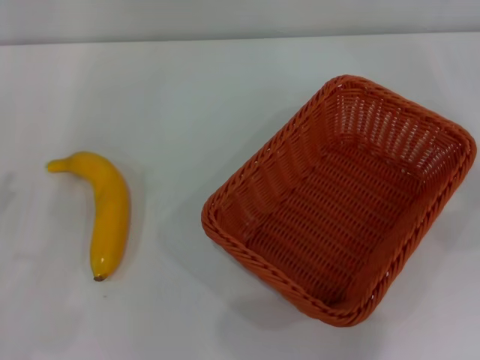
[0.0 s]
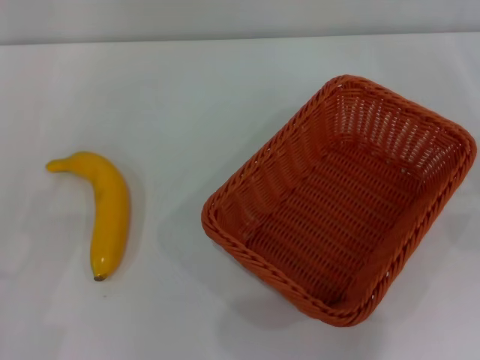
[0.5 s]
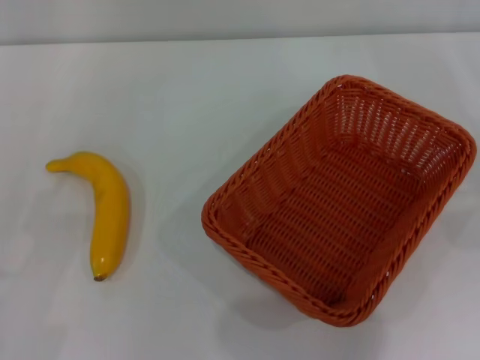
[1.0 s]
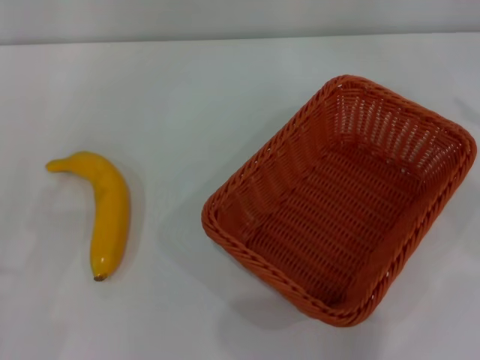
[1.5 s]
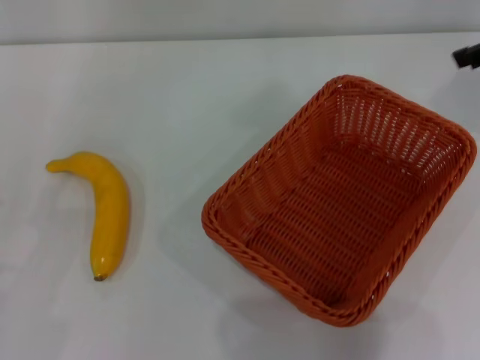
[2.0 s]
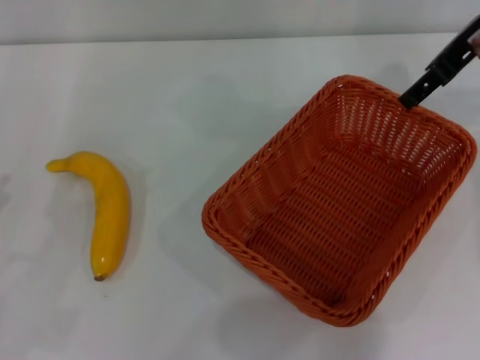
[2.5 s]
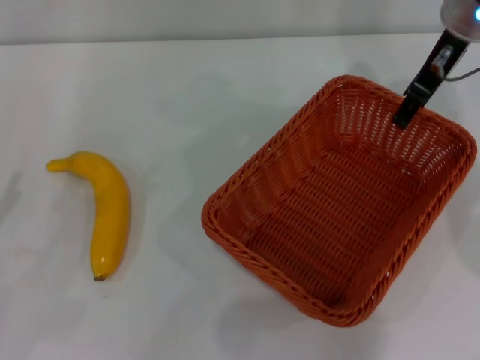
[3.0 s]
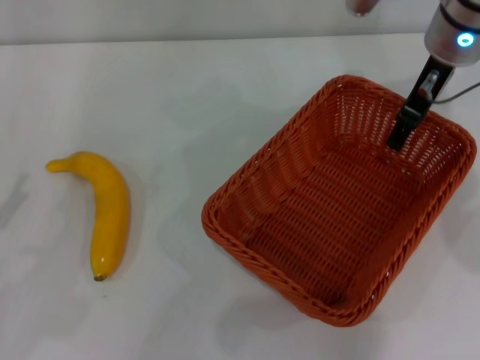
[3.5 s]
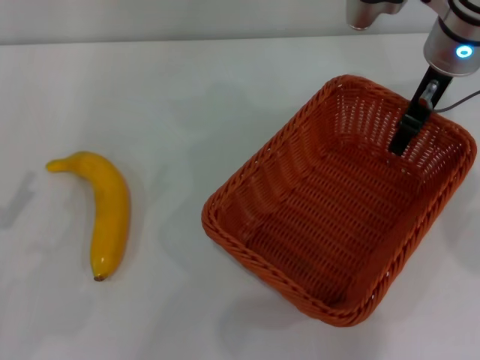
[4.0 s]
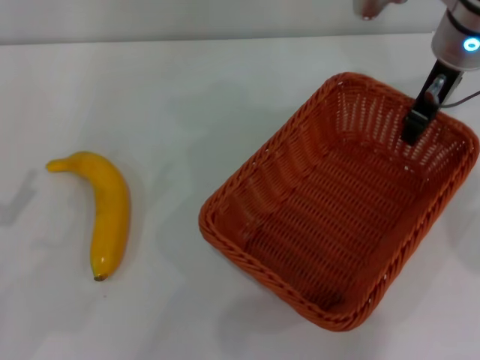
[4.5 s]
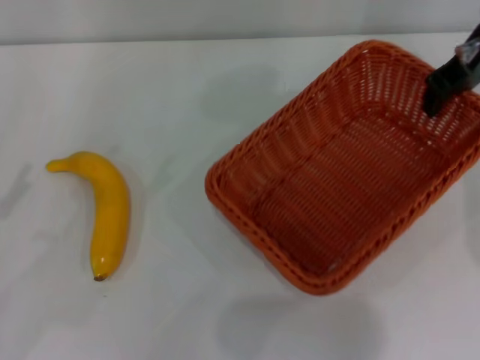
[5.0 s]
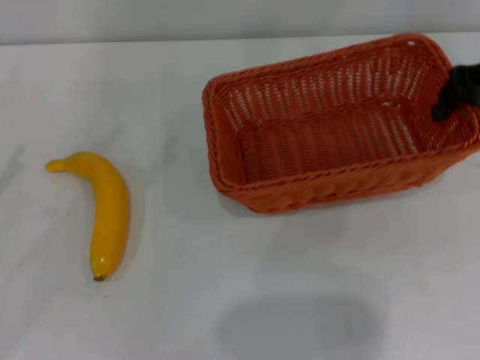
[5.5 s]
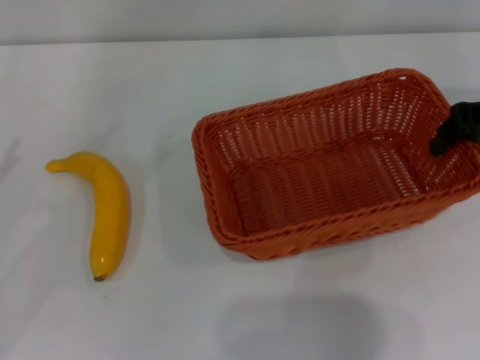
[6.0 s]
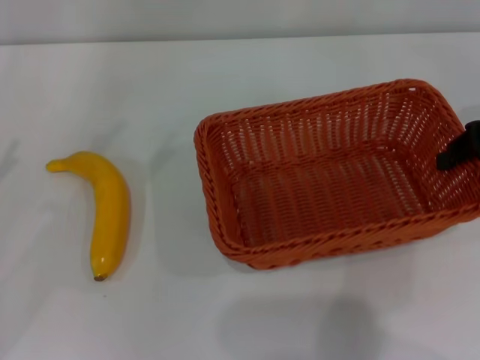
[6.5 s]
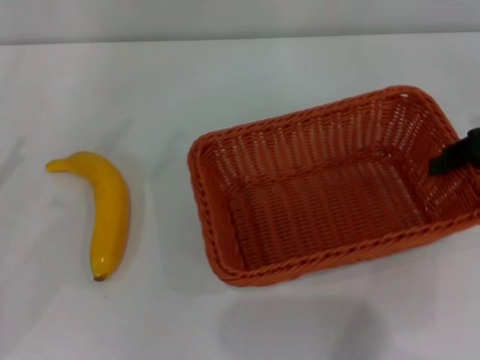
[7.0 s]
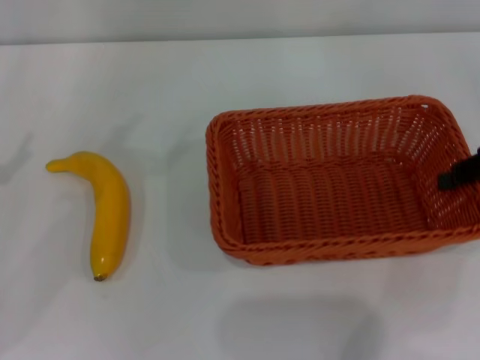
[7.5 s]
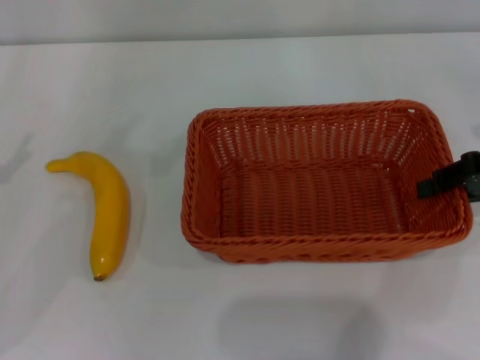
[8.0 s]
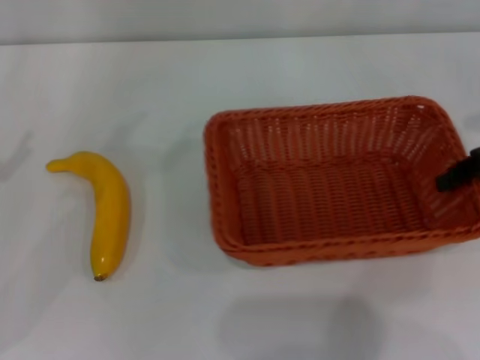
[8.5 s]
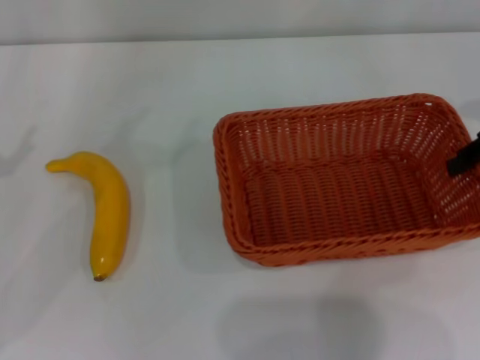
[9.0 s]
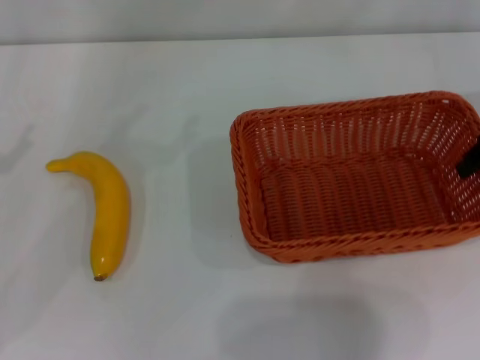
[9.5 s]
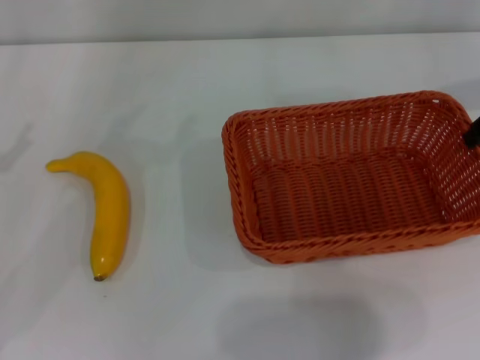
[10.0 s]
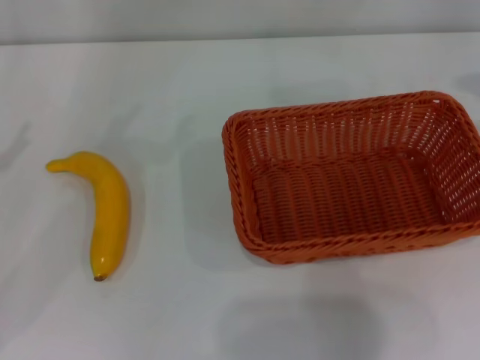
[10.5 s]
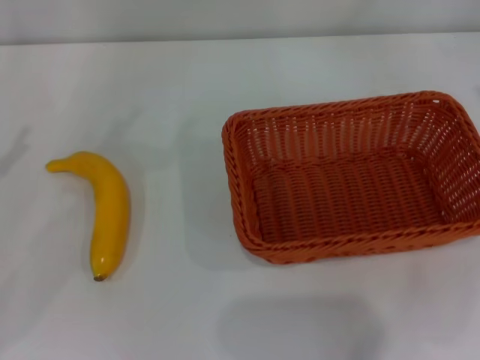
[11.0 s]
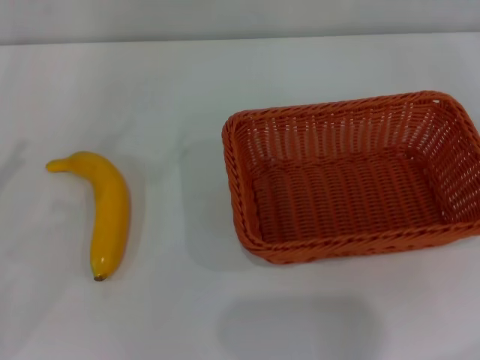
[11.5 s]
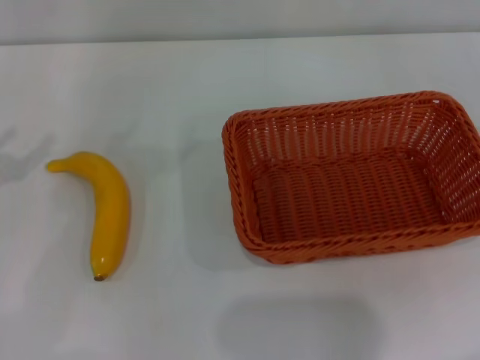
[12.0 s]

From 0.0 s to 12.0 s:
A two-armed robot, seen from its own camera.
Step, from 0.0 s to 5.0 s: Pick up the light basket with the right gripper.
Step, from 5.5 s to 10.5 s: Place the light basket in the center of view with the right gripper.
From 0.0 s to 2.0 s: The right gripper travels upward, forward and to the left by approximately 20 cm.
From 2.0 s to 4.0 s: The right gripper goes some 15 cm to the left and downward.
From 4.0 s to 6.0 s: The left gripper changes place by some 5 cm; the right gripper goes some 15 cm to the right and backward, and closes.
From 6.0 s to 8.0 s: The right gripper heads downward, covering roughly 5 cm.
From 8.0 s to 10.0 s: The right gripper travels upward and forward by approximately 10 cm.

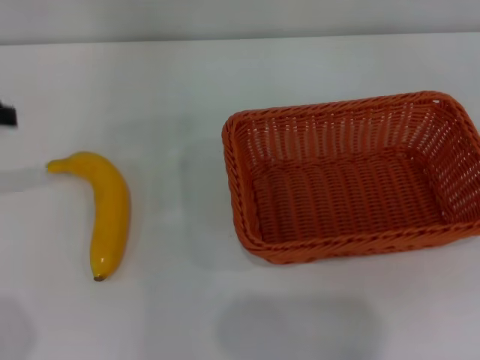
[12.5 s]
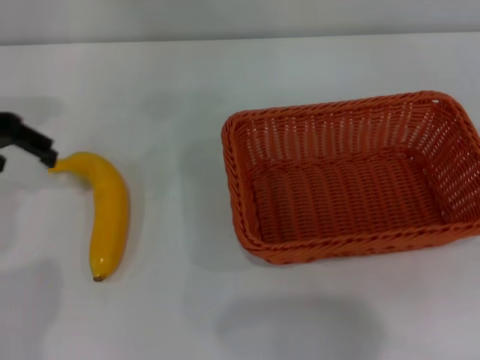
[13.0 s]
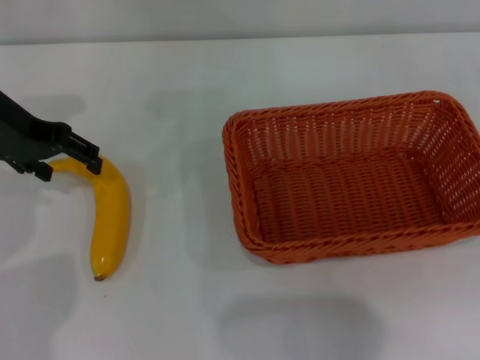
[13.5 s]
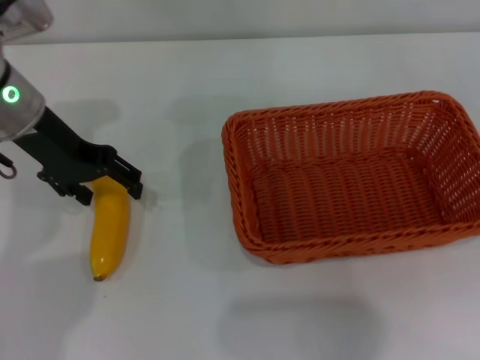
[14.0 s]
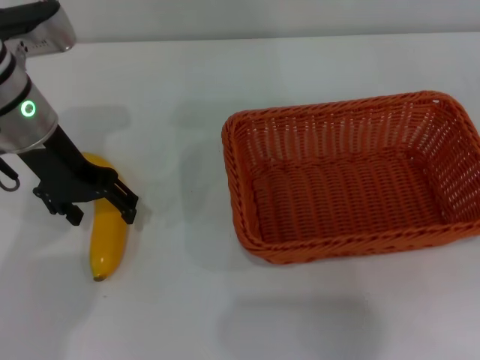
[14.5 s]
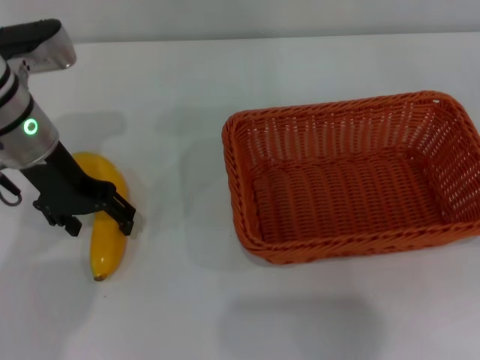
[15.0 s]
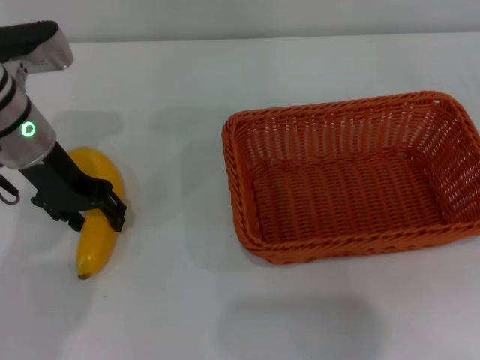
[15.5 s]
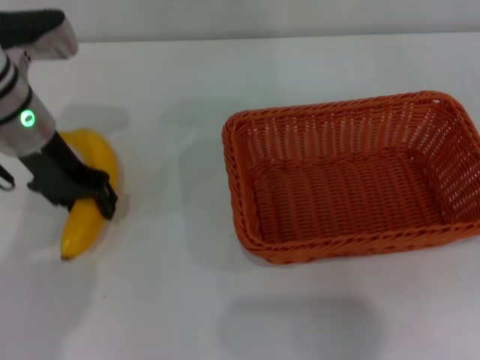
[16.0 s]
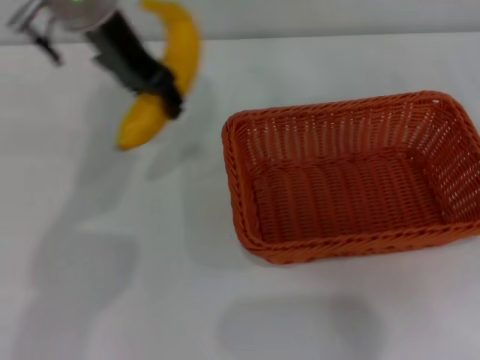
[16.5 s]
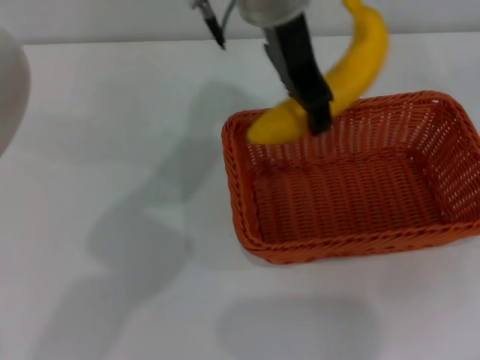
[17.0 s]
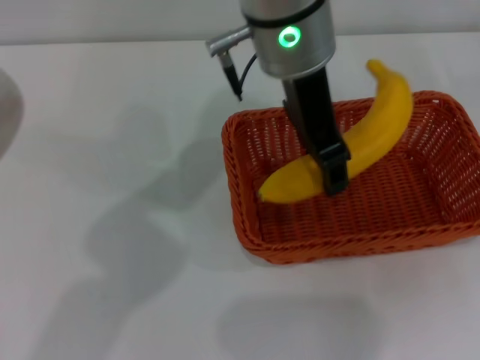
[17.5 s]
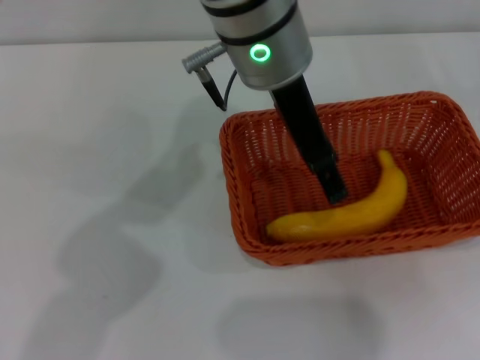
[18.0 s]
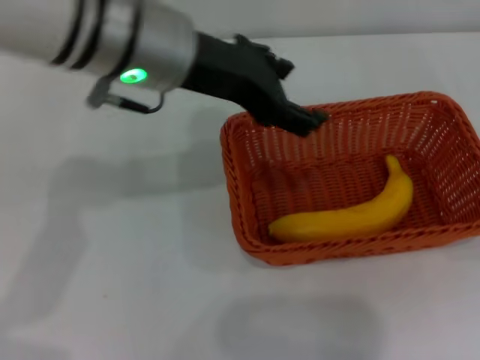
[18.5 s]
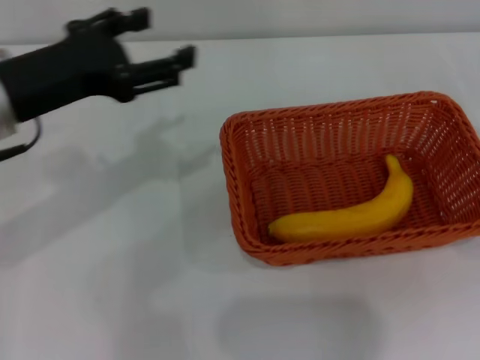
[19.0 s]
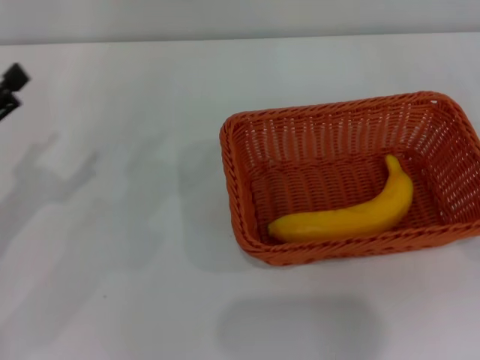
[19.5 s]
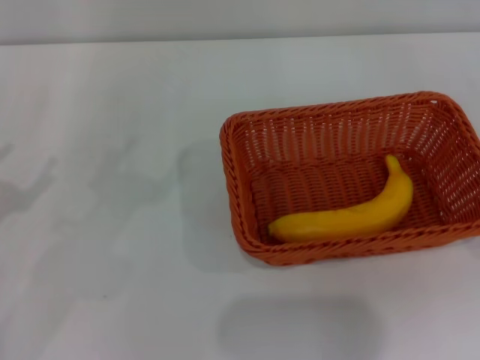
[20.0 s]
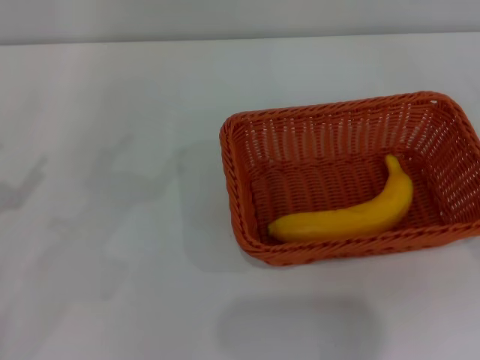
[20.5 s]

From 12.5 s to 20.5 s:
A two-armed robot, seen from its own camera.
Step, from 12.5 s to 16.5 s: Pick up the banana with the left gripper.
Step, from 17.0 s to 18.0 s: Place the banana into the light basket with the left gripper.
From 12.5 s to 14.5 s: The left gripper moves to the right, downward and forward, approximately 20 cm.
From 14.5 s to 16.5 s: The left gripper travels upward and to the right by some 10 cm, and closes.
From 16.5 s to 18.5 s: The left gripper travels backward by roughly 10 cm, reaches approximately 15 cm to the right, then returns, and opens.
From 18.5 s to 20.5 s: The left gripper moves to the left, downward and backward, about 35 cm.

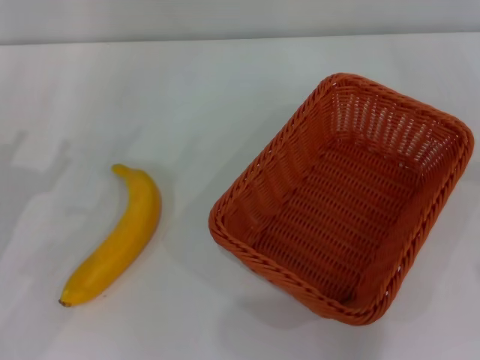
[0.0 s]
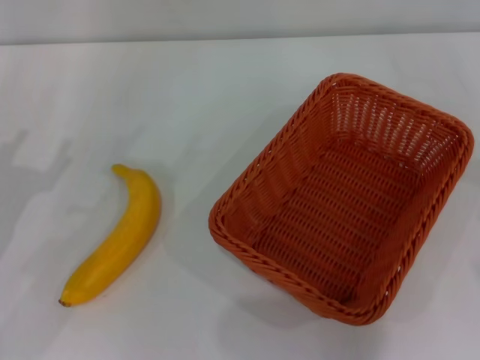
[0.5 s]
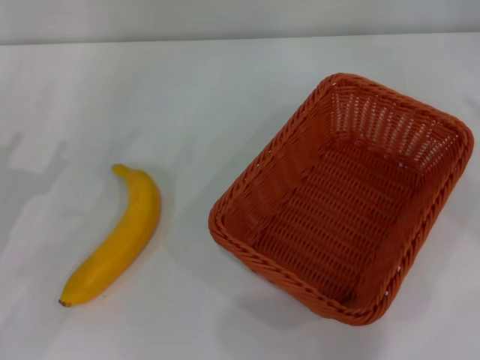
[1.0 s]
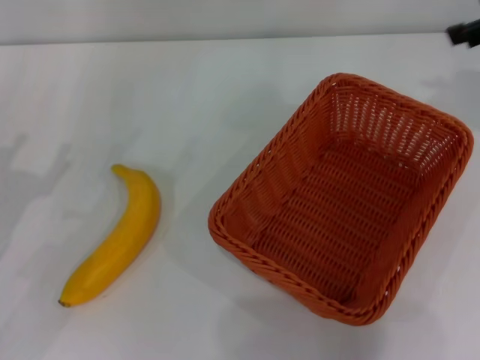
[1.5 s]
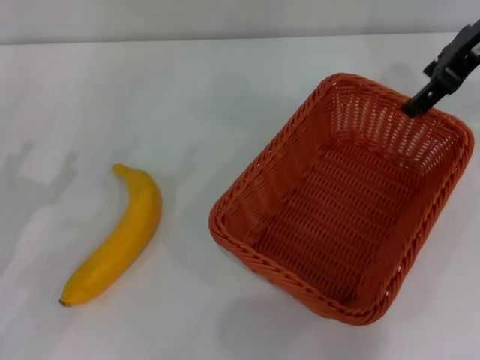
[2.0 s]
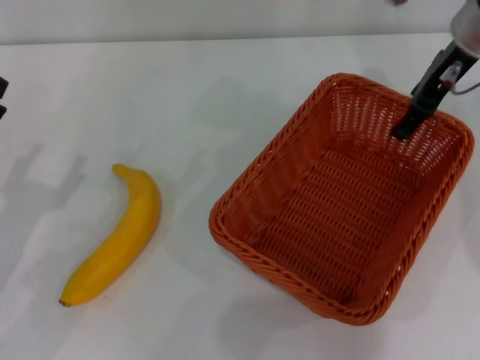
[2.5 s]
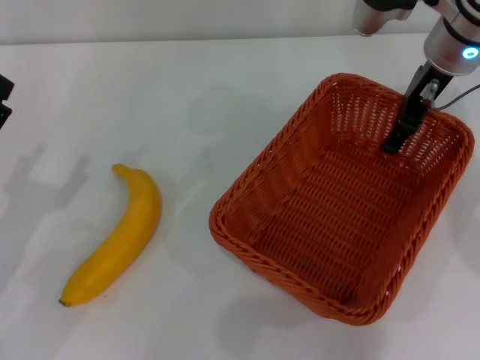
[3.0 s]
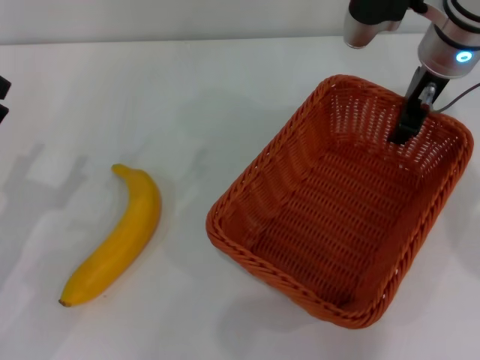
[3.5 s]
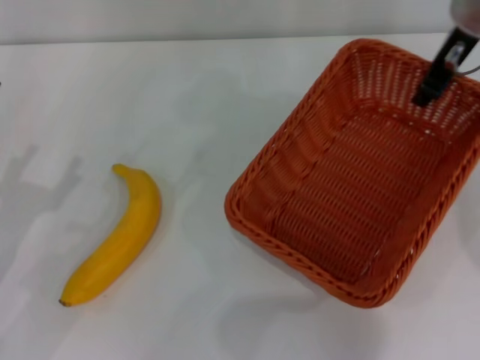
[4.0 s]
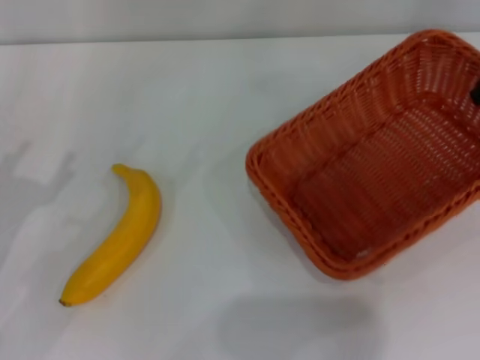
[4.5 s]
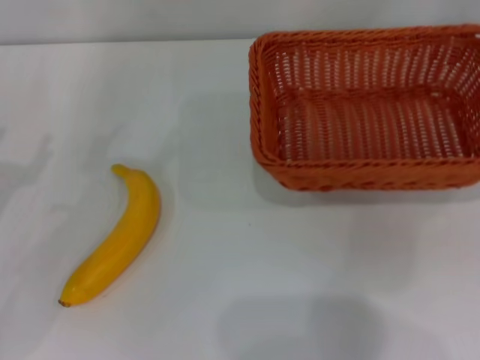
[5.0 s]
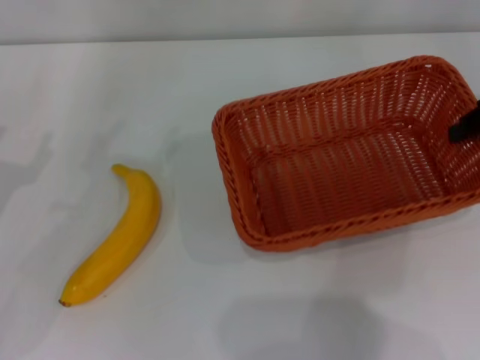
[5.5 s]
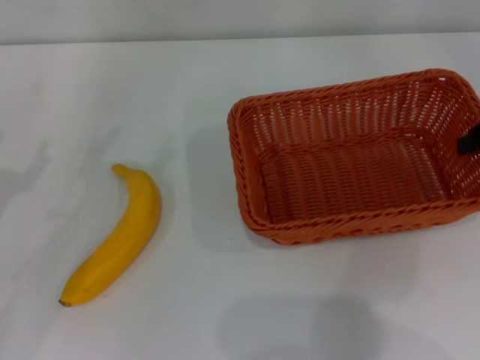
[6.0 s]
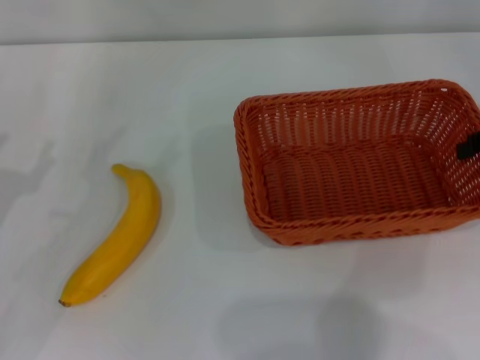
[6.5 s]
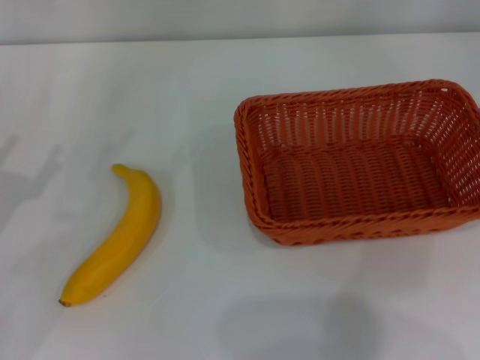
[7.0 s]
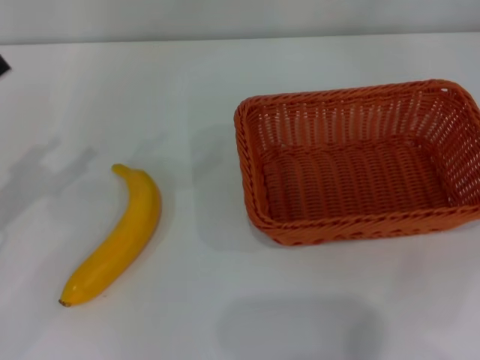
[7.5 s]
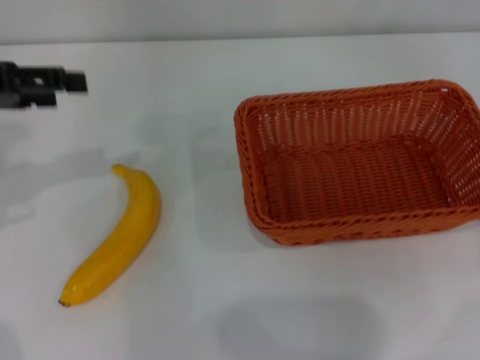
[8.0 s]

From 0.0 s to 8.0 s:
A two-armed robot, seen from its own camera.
Step, from 0.0 s to 4.0 s: Pick up the light basket with the right gripper.
Step, from 4.5 s to 7.0 s: Place the light basket in the center of view with the right gripper.
From 0.0 s to 2.0 s: The right gripper is displaced to the left, forward and upward by some 30 cm.
From 2.0 s to 4.0 s: The right gripper closes.
From 4.0 s to 6.0 s: The right gripper shifts about 15 cm to the right and backward.
From 6.0 s to 8.0 s: The left gripper goes about 15 cm upward and forward; the right gripper moves to the right and backward, approximately 15 cm, and opens its fingers.
